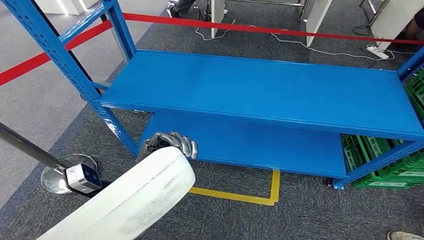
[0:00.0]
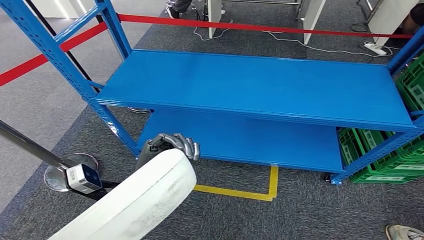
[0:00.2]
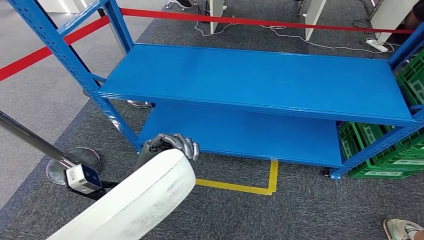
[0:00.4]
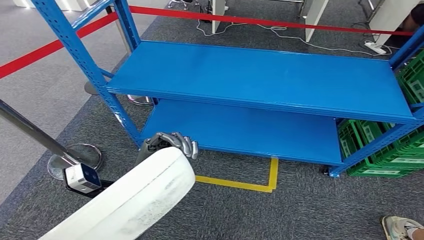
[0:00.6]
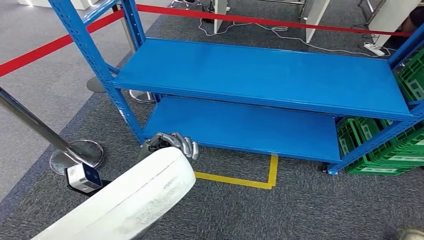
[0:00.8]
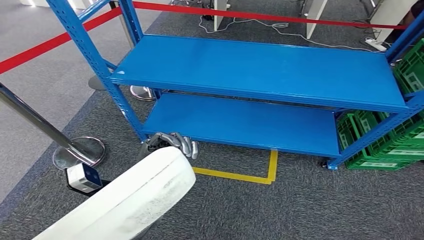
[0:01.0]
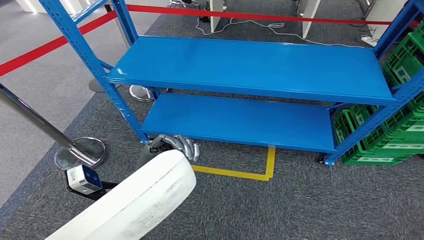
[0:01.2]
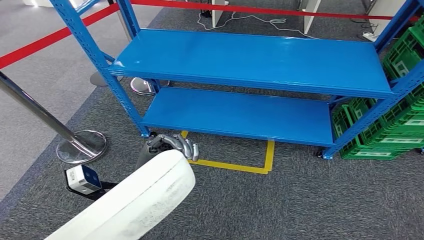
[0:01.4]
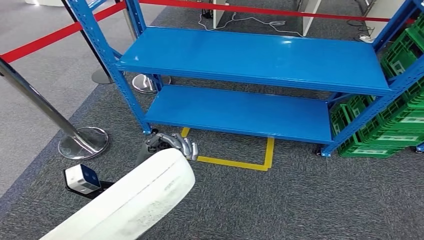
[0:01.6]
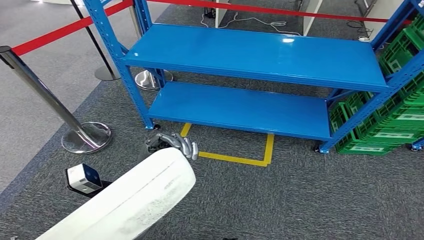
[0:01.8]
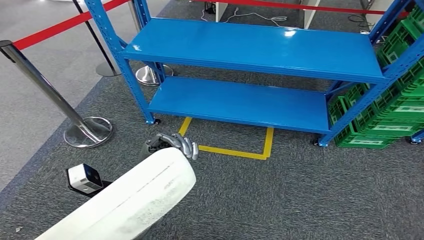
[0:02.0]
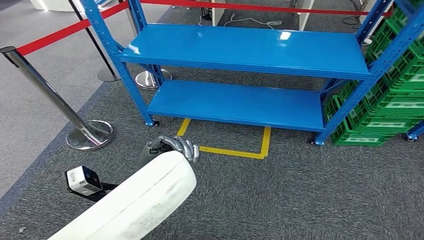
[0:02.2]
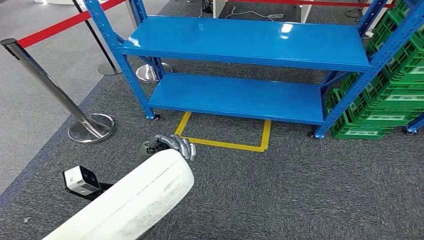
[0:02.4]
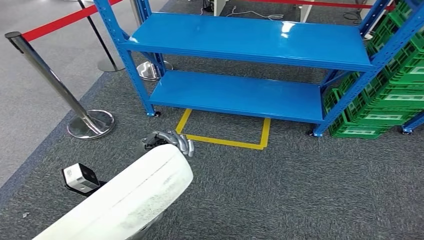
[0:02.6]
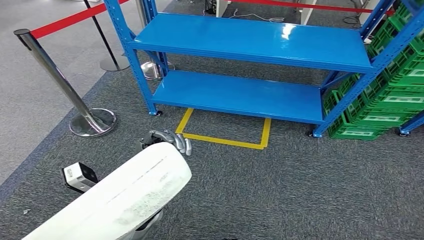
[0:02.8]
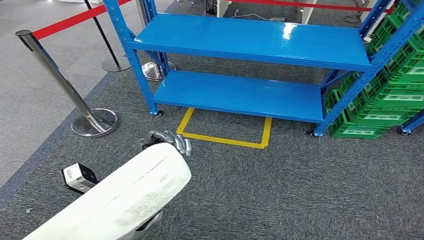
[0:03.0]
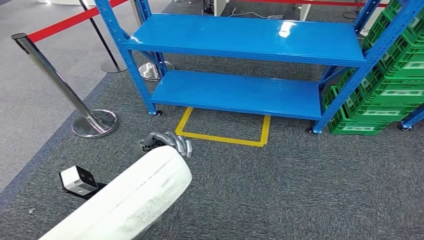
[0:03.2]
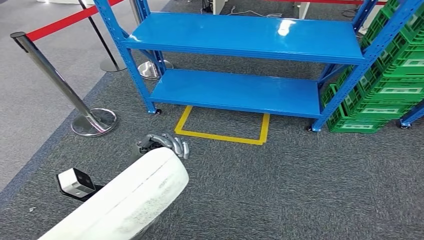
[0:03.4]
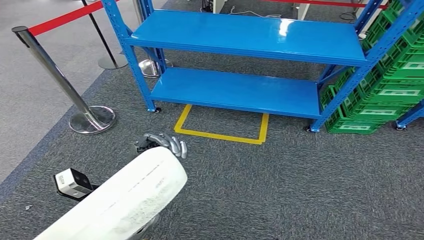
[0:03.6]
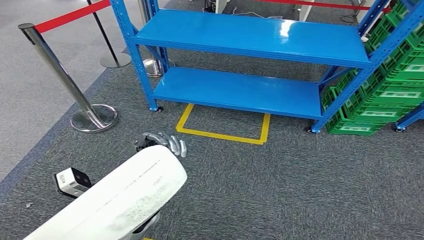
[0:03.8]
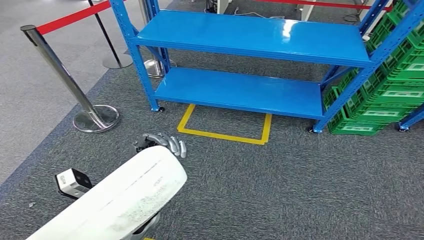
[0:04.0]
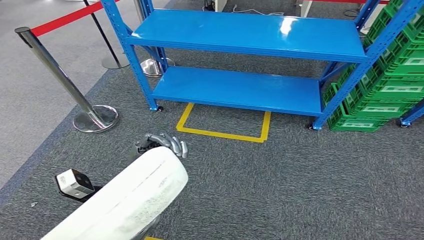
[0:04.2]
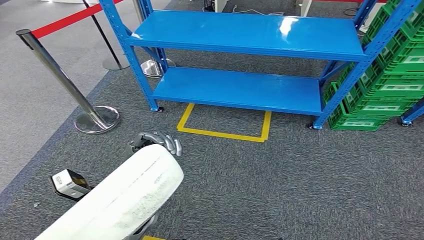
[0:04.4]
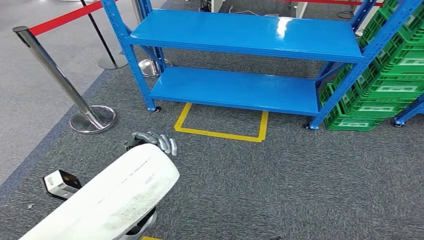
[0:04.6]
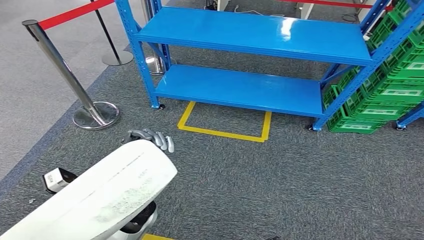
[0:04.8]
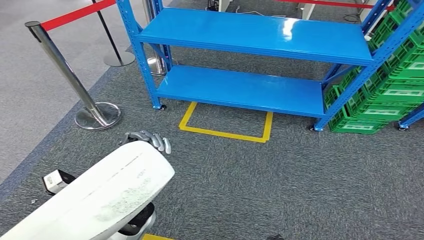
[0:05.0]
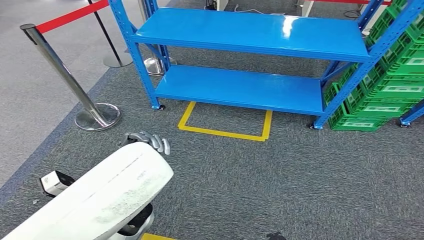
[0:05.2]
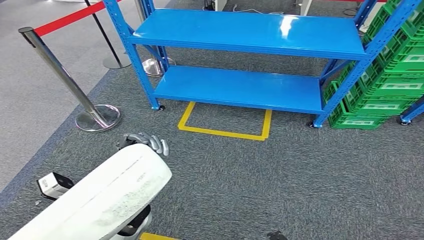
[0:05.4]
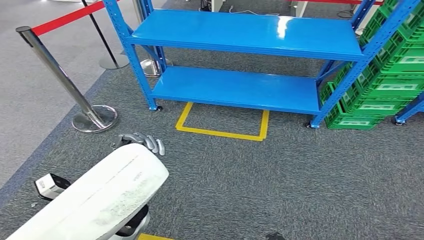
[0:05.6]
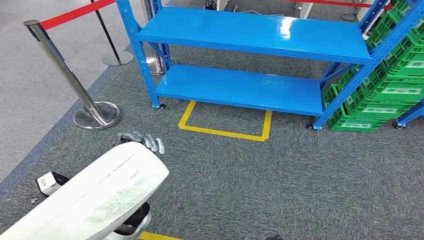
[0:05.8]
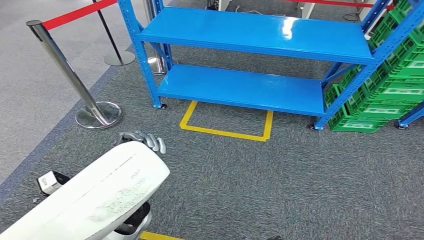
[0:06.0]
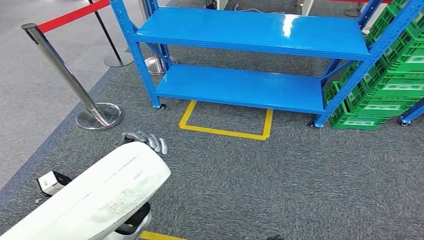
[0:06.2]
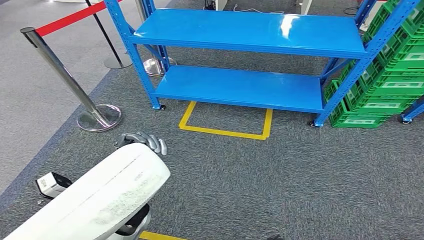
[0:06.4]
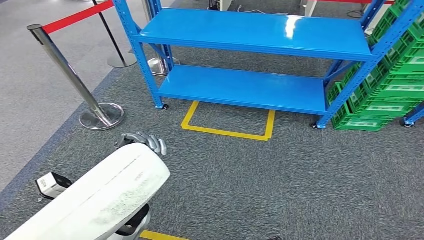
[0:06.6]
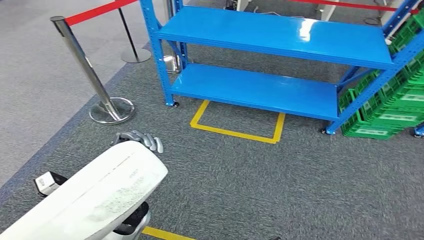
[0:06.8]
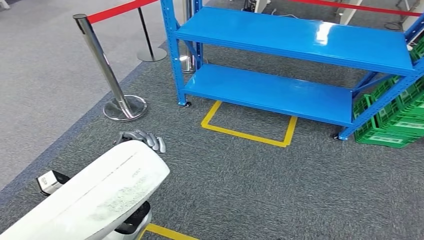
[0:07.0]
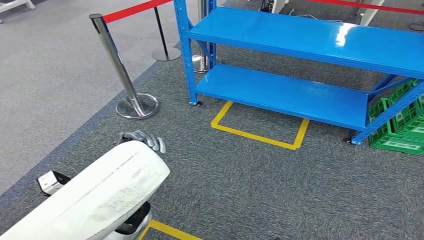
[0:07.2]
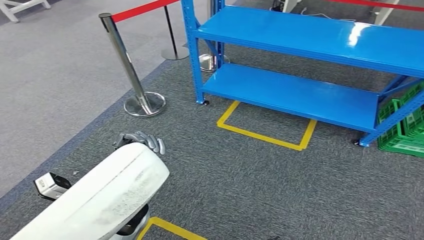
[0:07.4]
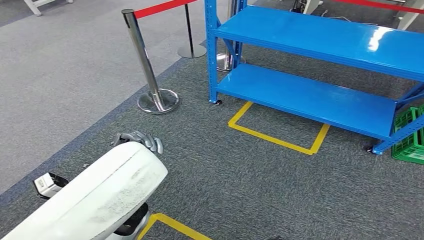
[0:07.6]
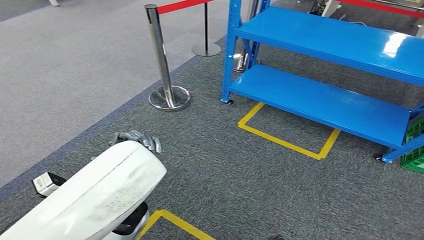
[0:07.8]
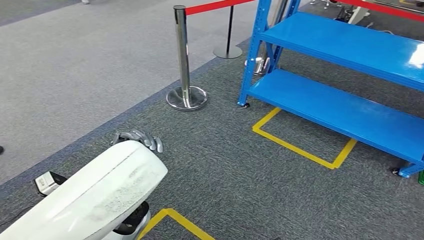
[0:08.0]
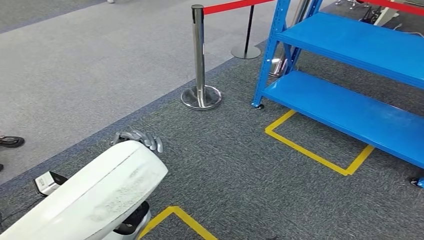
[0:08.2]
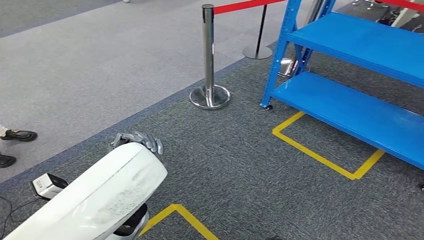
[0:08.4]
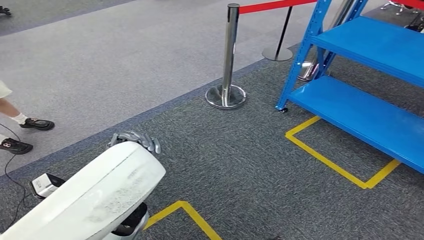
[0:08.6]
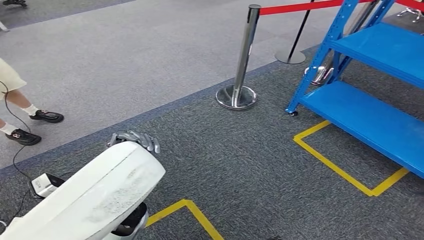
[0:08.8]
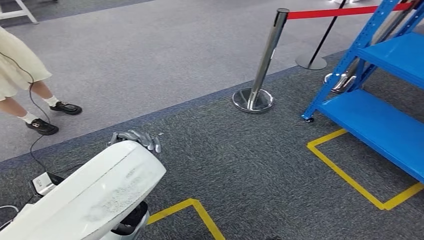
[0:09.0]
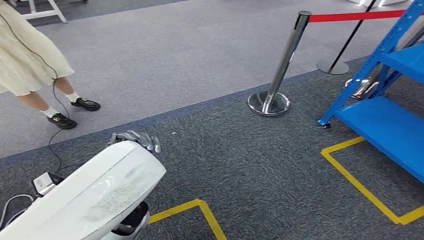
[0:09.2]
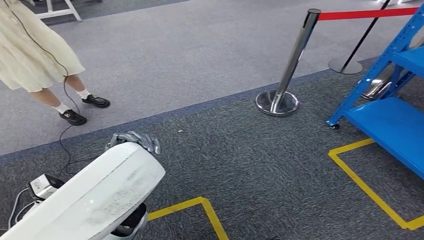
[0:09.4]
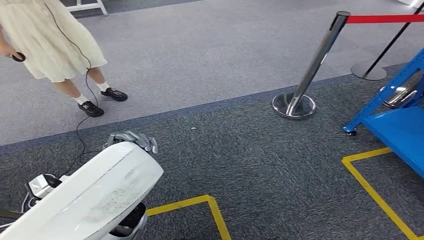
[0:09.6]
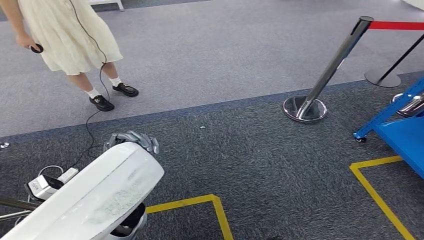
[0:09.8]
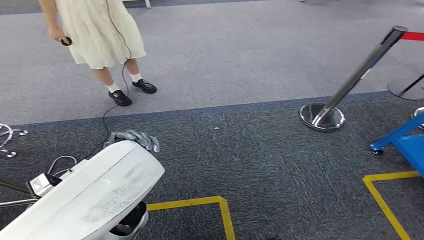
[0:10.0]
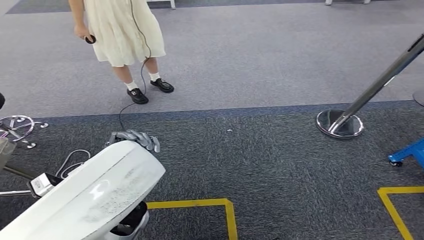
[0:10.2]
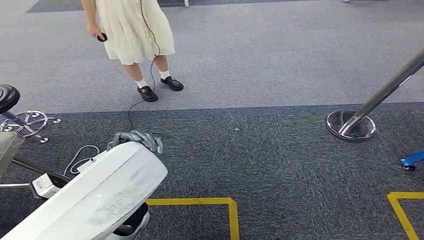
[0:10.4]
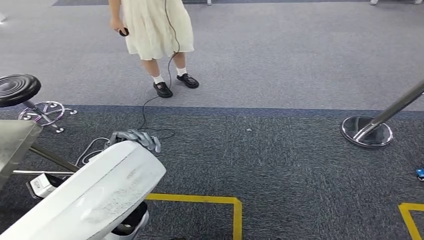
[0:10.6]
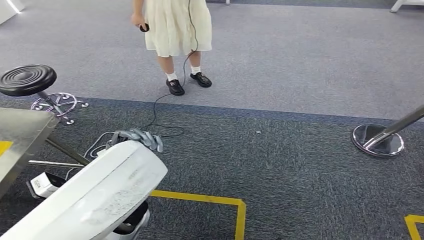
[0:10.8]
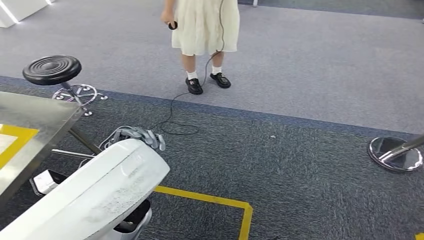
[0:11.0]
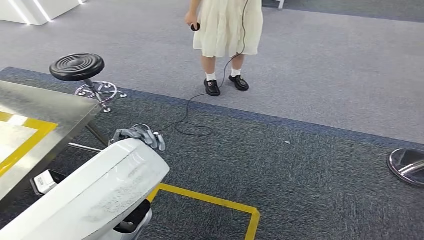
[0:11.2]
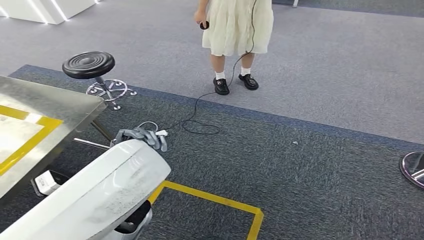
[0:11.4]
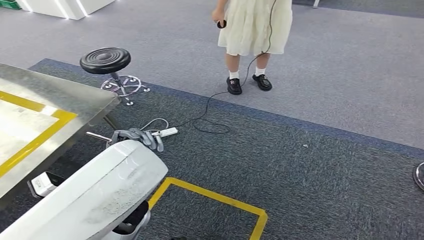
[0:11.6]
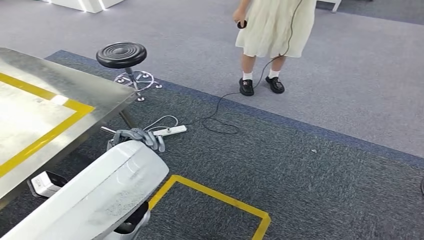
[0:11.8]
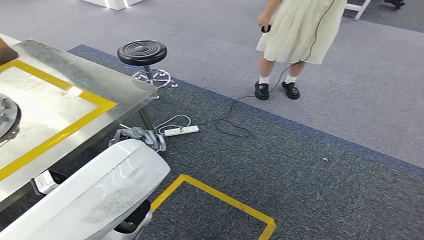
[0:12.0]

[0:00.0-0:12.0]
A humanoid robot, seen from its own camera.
0:03.0 to 0:04.4: There are only small adjustments of the hands.

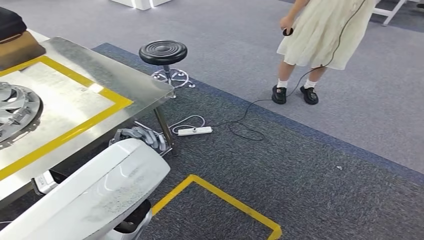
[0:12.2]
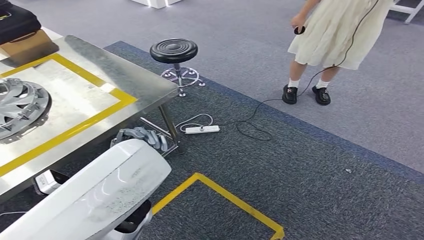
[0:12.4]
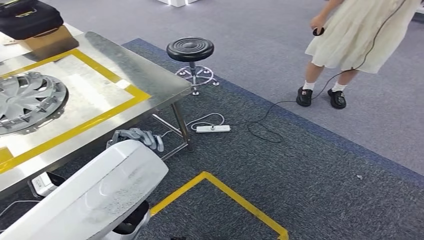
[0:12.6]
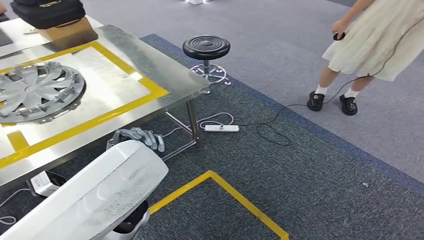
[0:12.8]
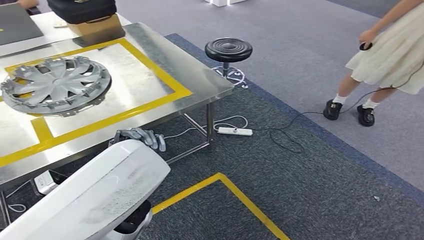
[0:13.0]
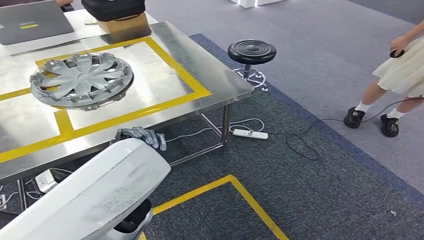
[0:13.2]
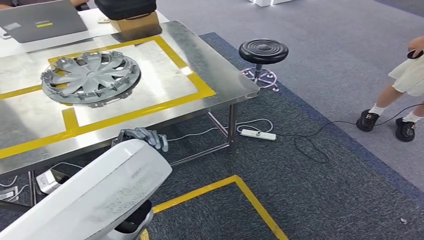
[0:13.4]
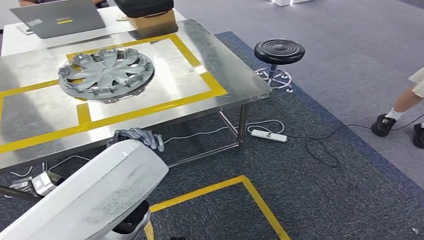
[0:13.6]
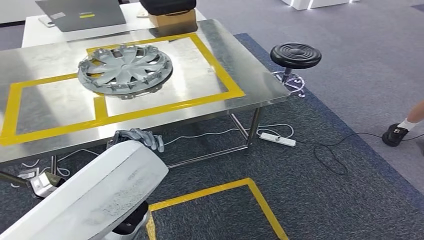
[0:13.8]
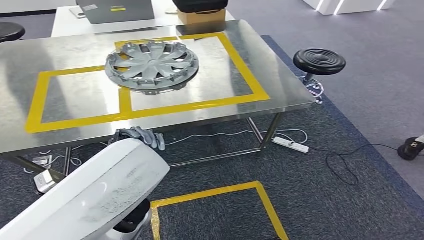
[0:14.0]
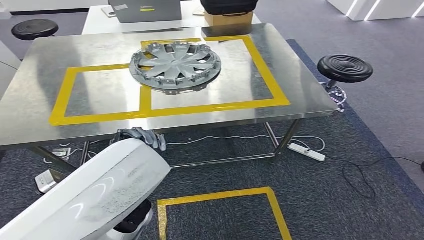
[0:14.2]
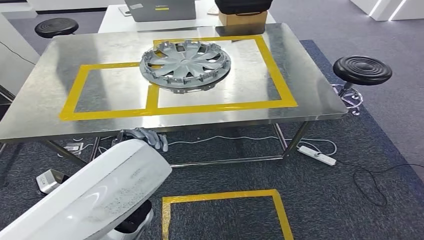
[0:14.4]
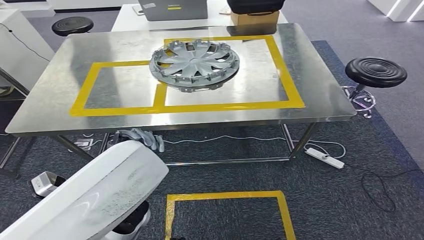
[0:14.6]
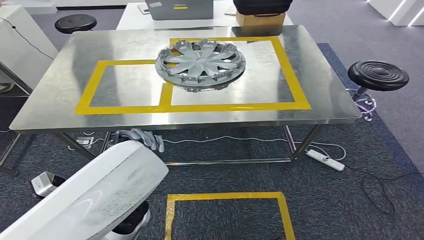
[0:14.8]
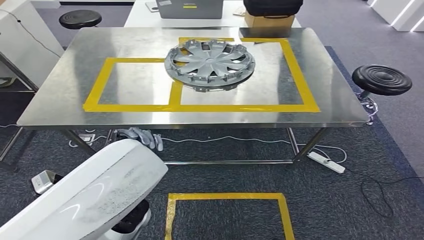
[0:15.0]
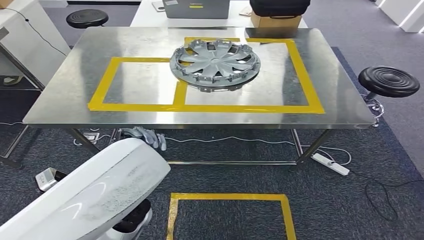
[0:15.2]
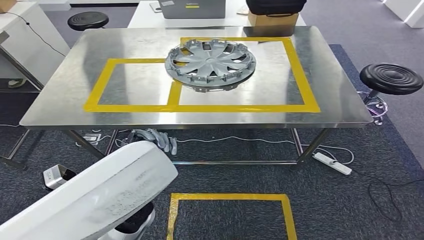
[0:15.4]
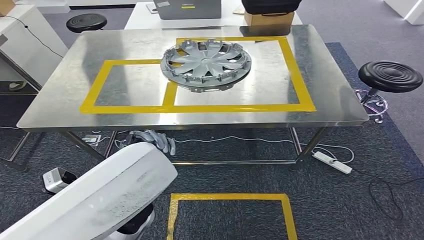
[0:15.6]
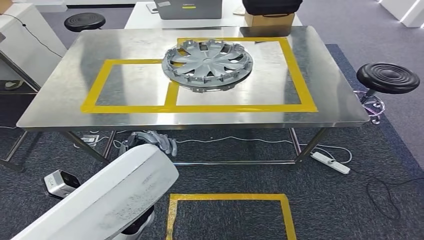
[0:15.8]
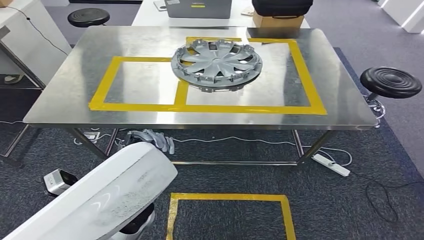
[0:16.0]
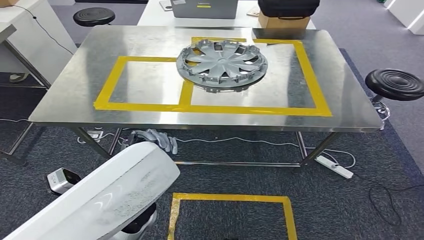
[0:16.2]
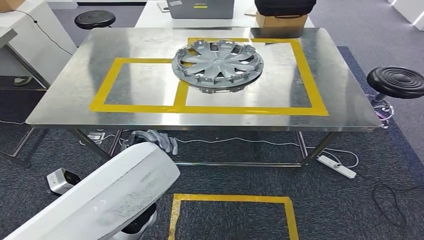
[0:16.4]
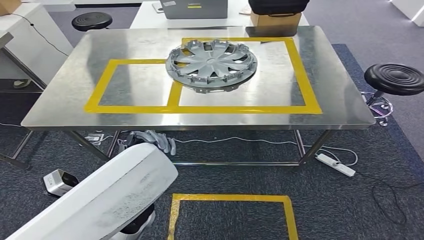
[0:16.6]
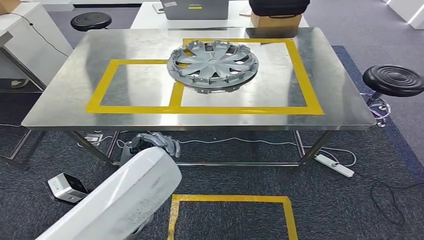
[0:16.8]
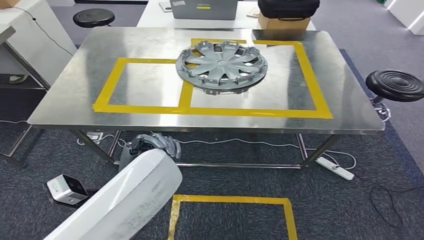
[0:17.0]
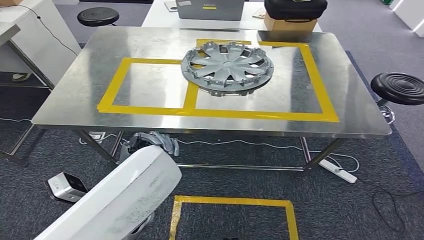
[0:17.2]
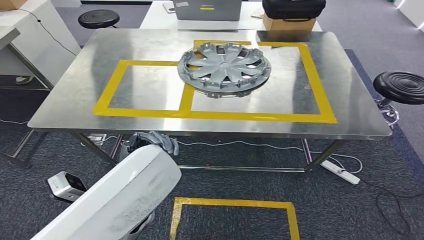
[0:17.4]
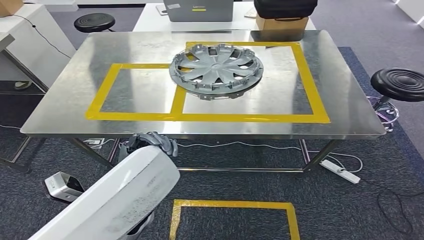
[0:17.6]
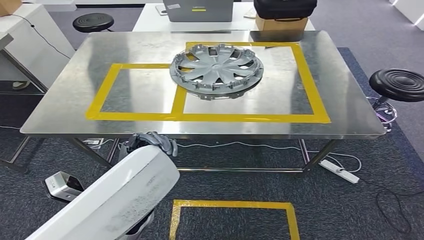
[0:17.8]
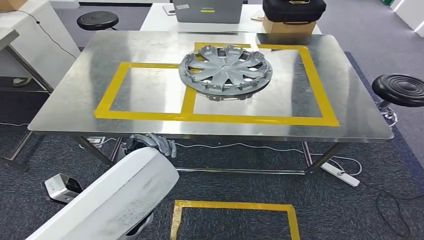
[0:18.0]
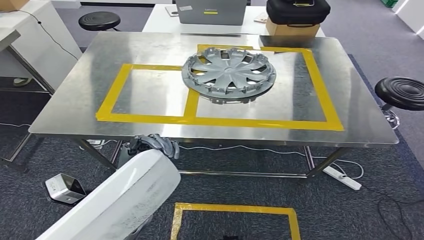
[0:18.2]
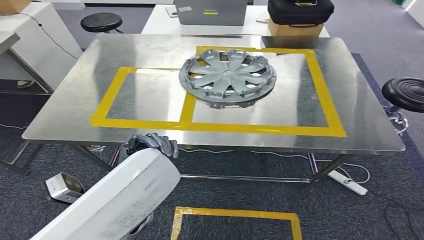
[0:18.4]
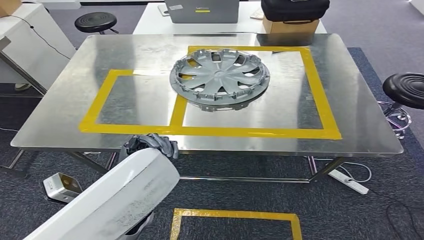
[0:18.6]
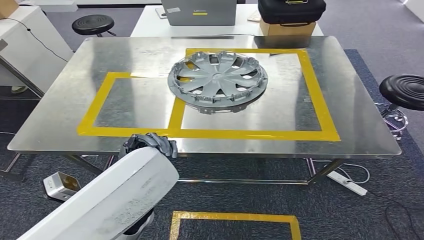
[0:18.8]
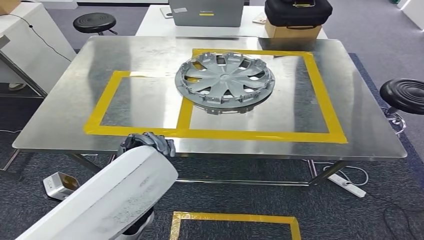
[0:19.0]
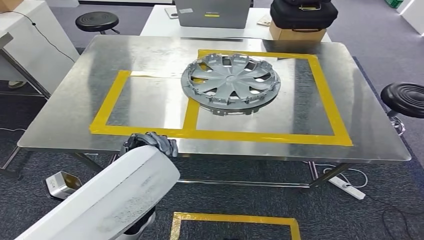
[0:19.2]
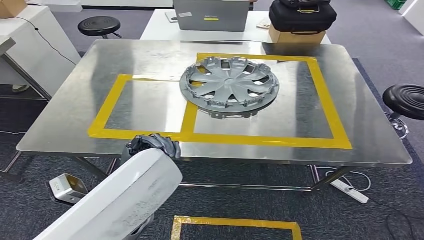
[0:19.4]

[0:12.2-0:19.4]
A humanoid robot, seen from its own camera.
Step, 0:12.2 to 0:16.4: Move the small component to the workbench.
